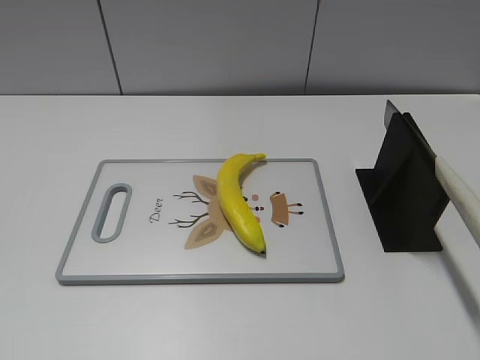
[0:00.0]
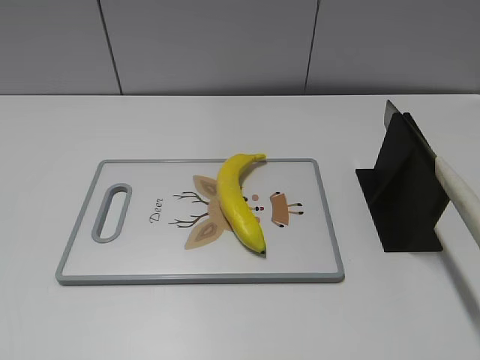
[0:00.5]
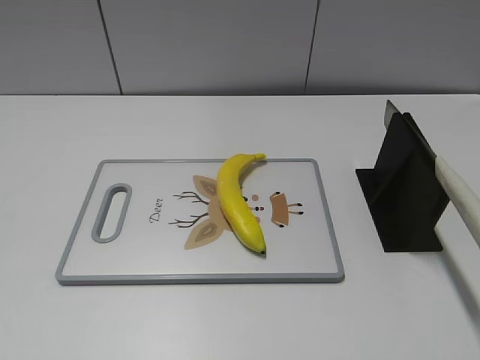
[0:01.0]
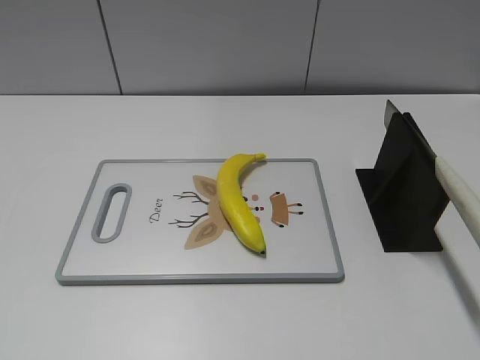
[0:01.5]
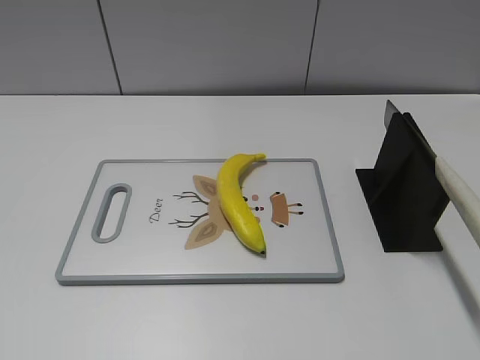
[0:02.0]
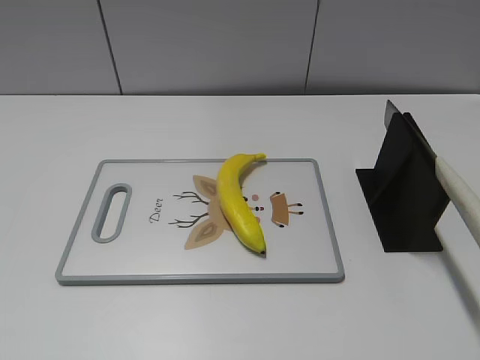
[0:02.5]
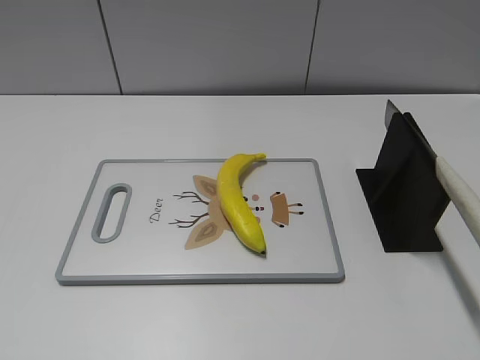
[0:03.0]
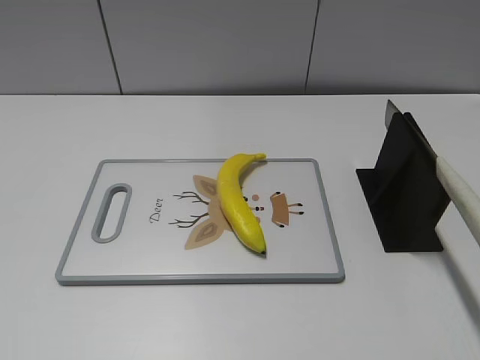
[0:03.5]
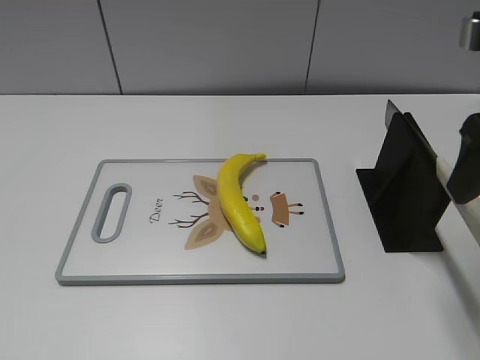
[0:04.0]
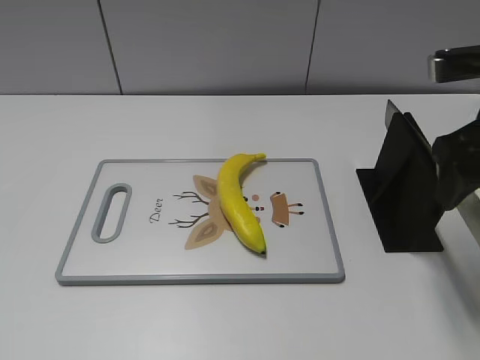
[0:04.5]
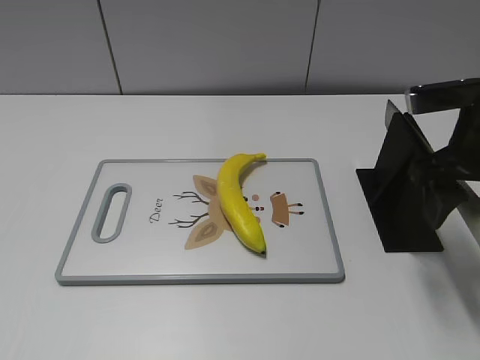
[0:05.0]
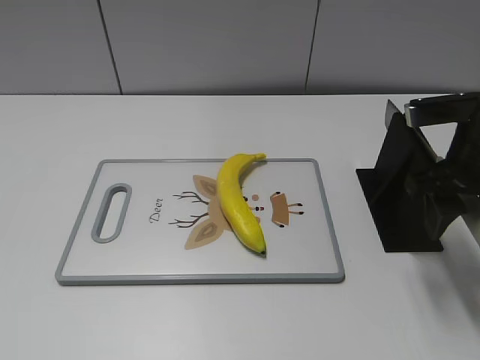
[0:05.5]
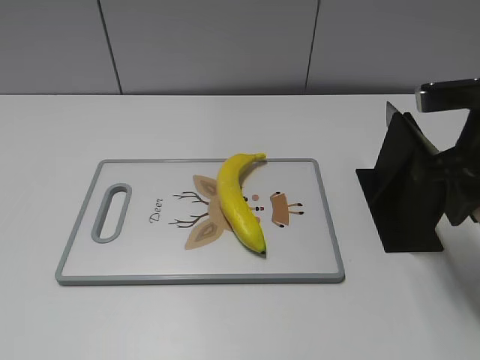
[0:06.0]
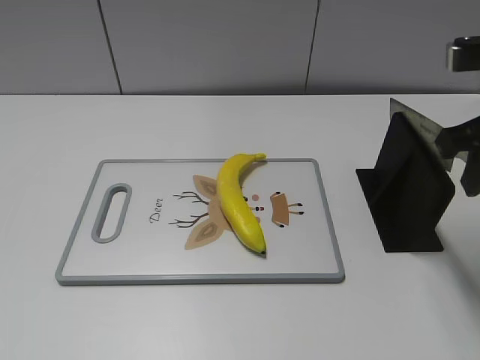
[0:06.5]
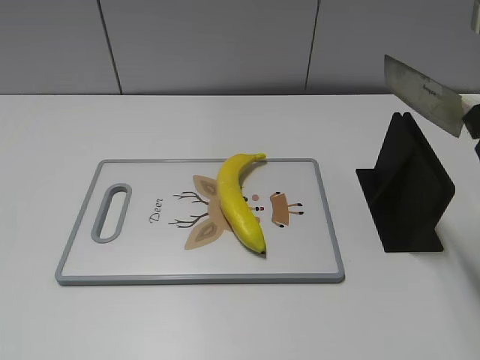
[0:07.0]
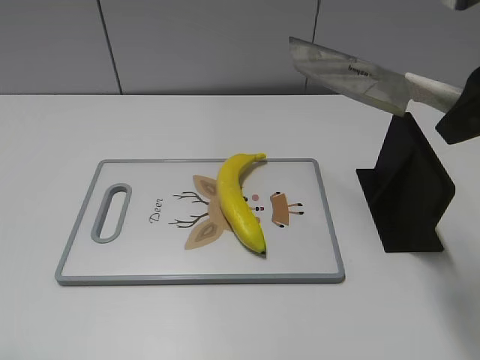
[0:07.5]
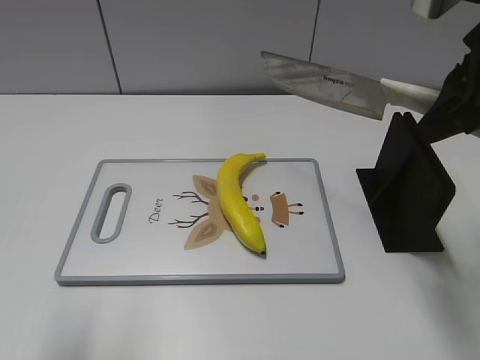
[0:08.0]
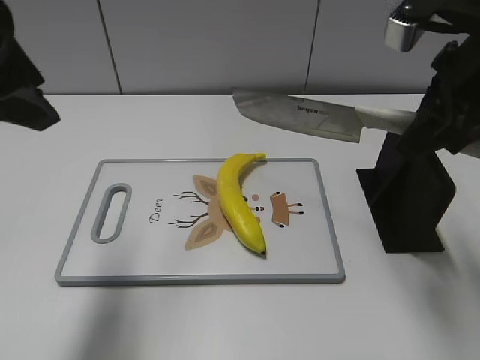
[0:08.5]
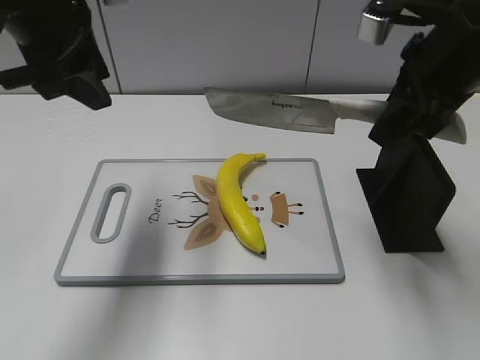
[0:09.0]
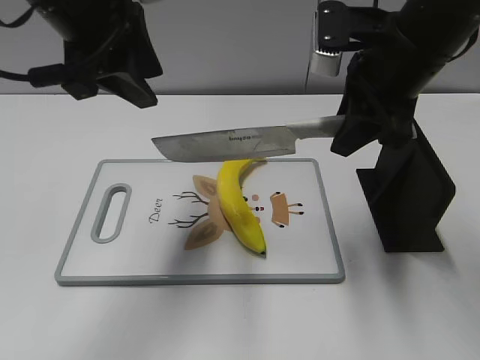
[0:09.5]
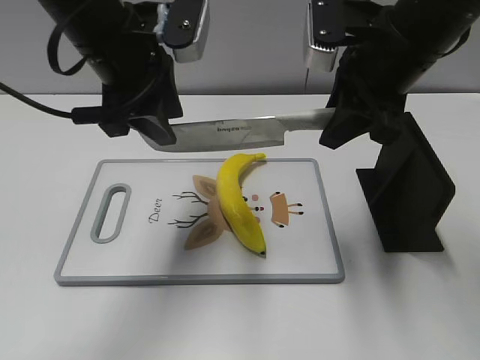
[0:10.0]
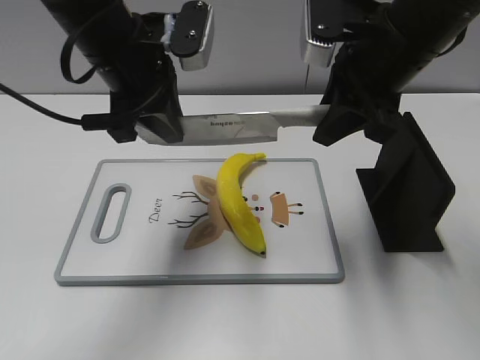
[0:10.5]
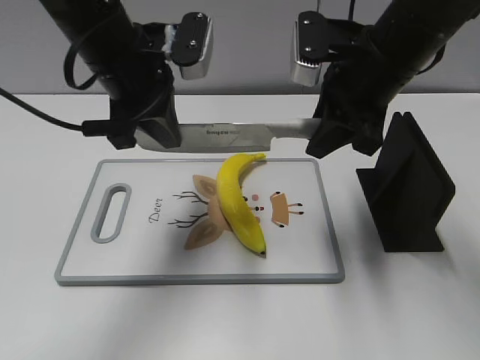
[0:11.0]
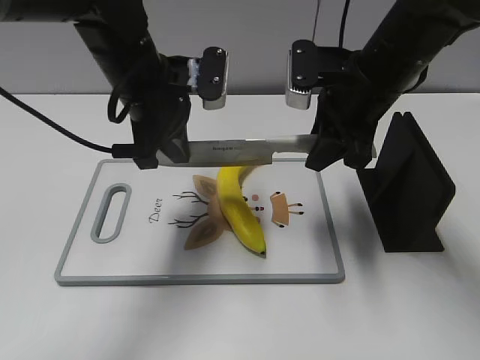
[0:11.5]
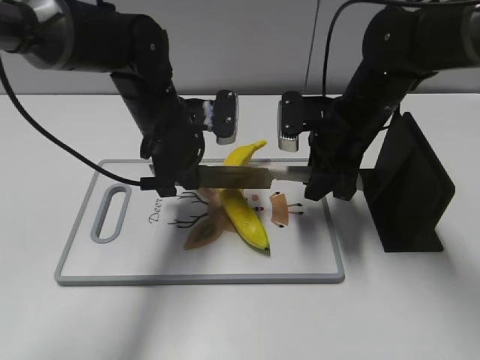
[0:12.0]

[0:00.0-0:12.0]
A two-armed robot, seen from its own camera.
Task of the whole recording: cut plastic banana.
Step, 0:00.0 to 0:07.0: Grab the knife handle with your right hand.
0:02.0 to 0:04.0: The right gripper travels forward by about 25 cm.
0:04.0 to 0:06.0: The right gripper shifts roughly 10 cm downward, and closes.
0:06.0 to 0:08.0: The right gripper moves upward, some 10 cm; the left gripper shifts some 15 cm forward and to the right.
0:08.0 to 0:10.0: The left gripper goes some 25 cm forward and to the right; the right gripper shifts some 10 cm to the left and forward.
0:10.0 to 0:12.0: The grippers both shift downward by roughly 10 cm. The left gripper closes its fingers.

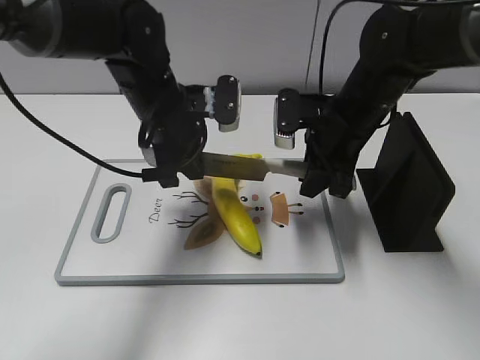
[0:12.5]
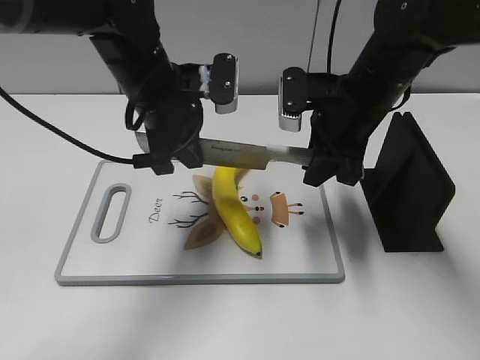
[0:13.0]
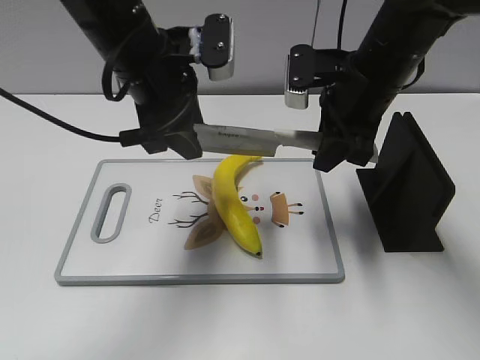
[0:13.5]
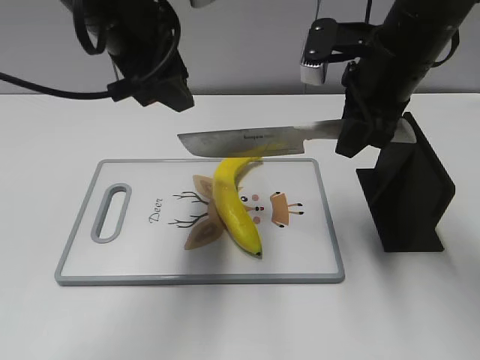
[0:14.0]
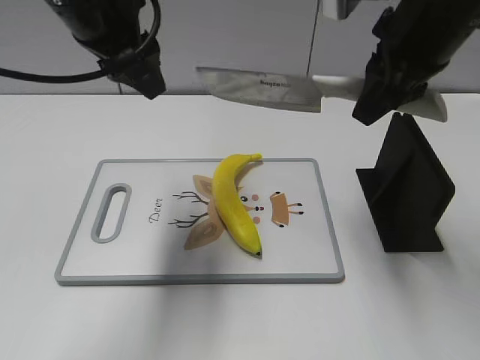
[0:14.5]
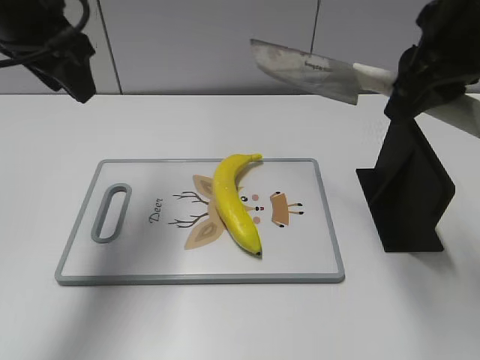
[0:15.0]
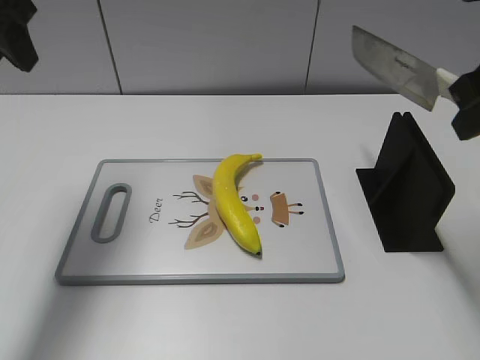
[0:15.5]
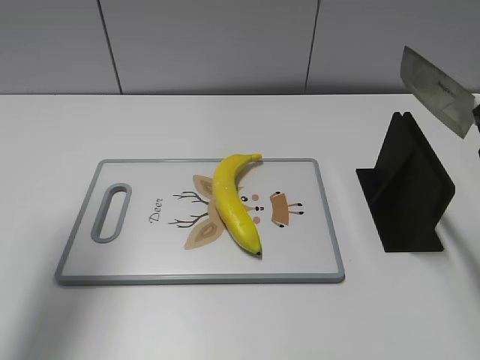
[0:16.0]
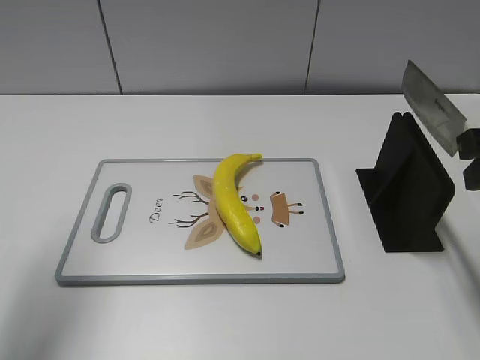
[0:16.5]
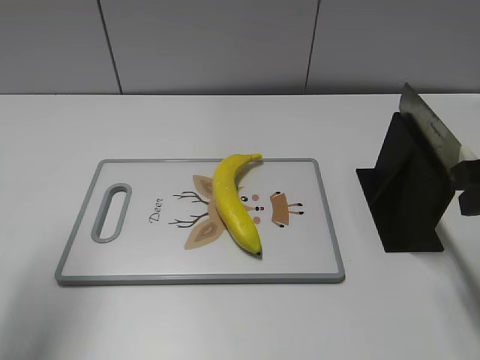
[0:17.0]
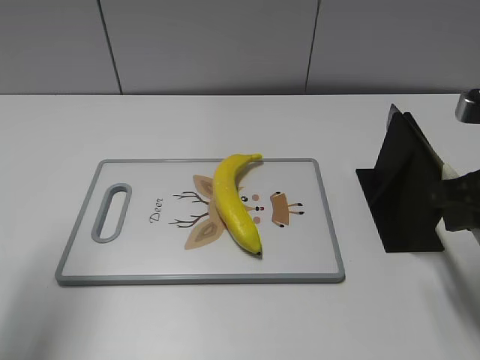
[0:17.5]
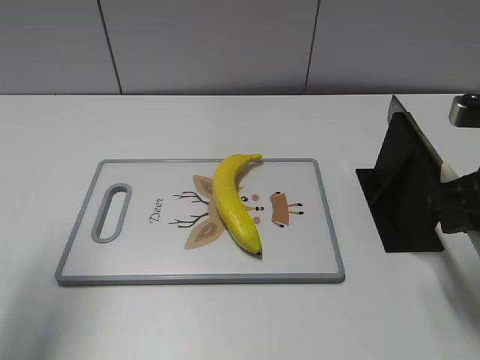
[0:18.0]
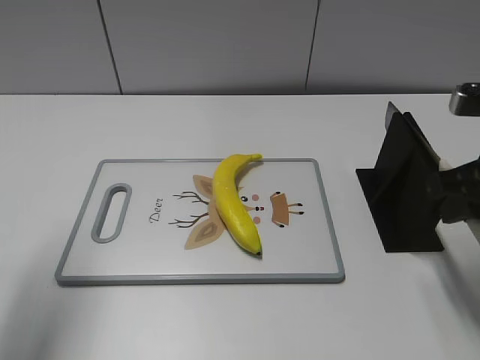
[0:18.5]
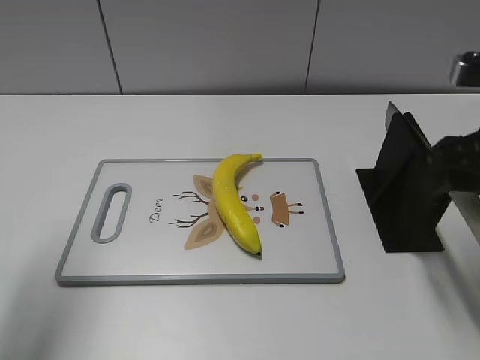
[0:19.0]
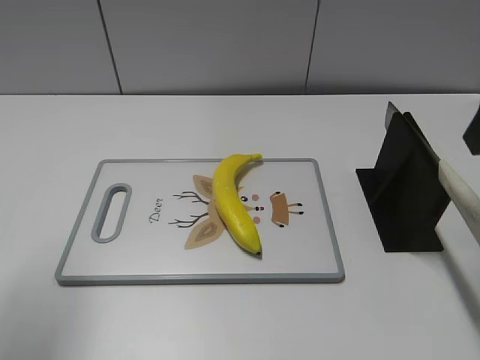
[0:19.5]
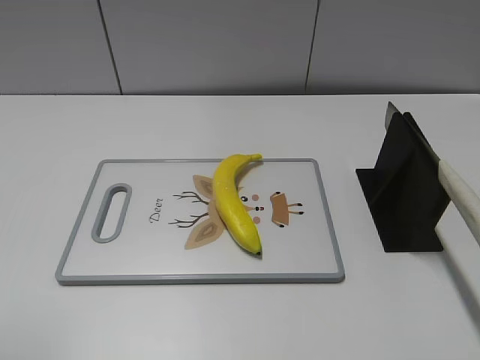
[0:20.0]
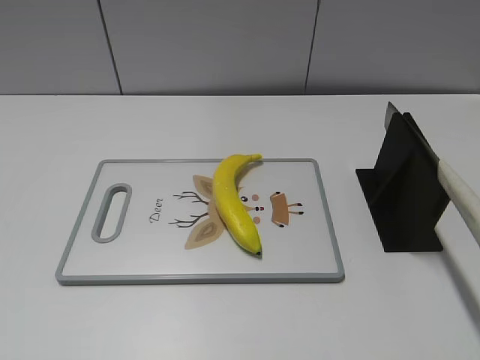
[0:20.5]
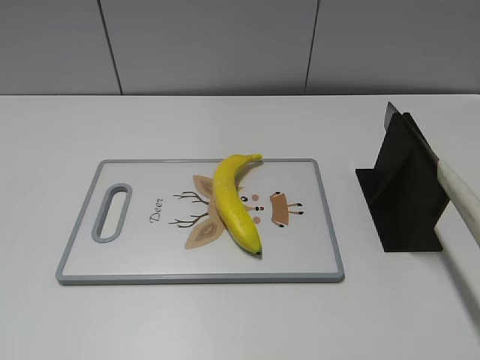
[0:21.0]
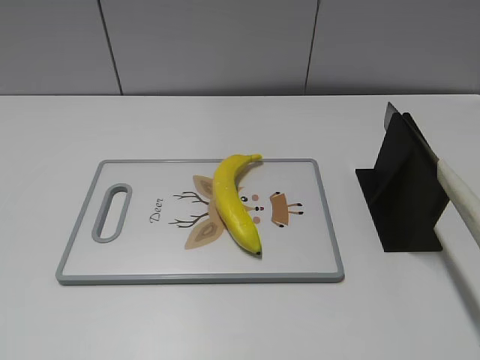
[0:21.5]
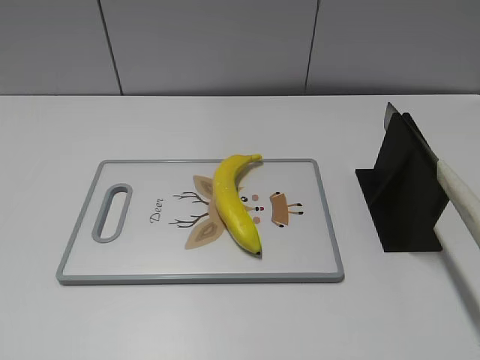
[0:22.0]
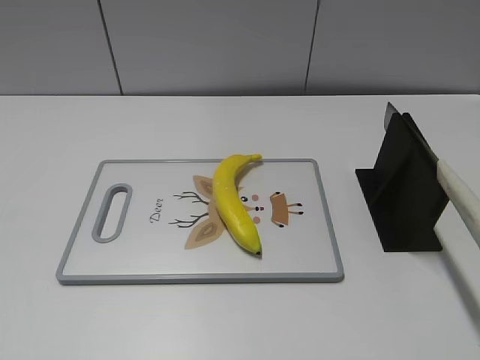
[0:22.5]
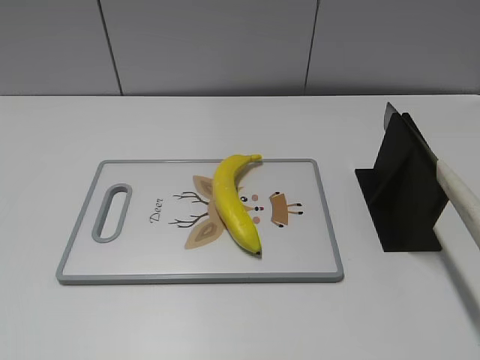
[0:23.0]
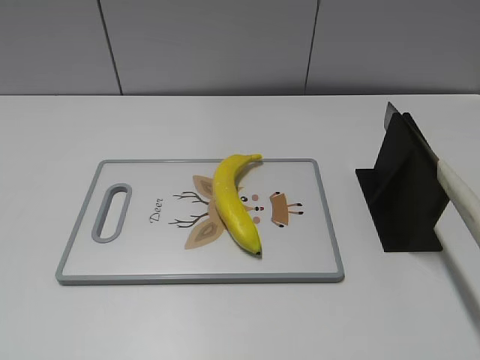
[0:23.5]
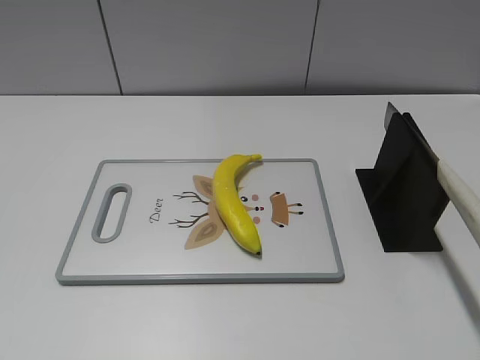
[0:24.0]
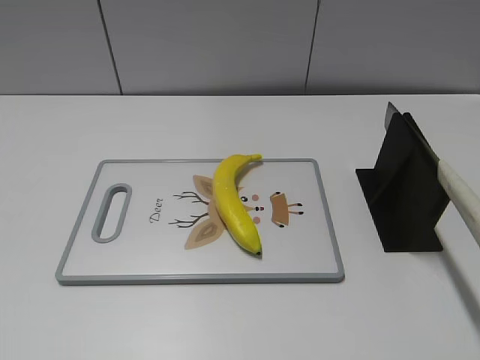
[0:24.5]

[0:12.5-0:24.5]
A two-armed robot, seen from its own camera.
Task of the whole recording: cut plastic banana.
Step, 0:13.5 to 0:15.0: Cut the banana with your right hand.
Step, 0:15.5 to 0:17.0: Lift the knife with your right hand.
Step, 0:17.5 to 0:23.5: Place the knife on the storage rack with your right hand.
0:12.5 to 0:14.5: The grippers both shift upward by some 15 cm. The left gripper opens up.
0:14.5 to 0:16.5: The left gripper travels to the left and backward by about 20 cm. Meanwhile the right gripper heads to the right and backward, covering some 15 cm.
0:16.5 to 0:18.5: The right gripper shifts about 5 cm downward.
0:18.5 to 0:20.5: The right gripper travels backward and upward by some 20 cm, and opens. Meanwhile the left gripper shifts some 20 cm backward.
